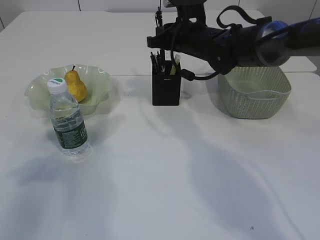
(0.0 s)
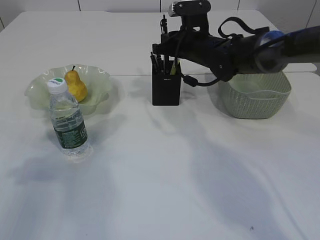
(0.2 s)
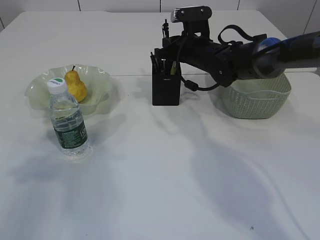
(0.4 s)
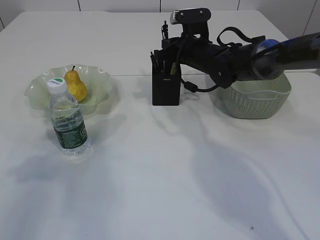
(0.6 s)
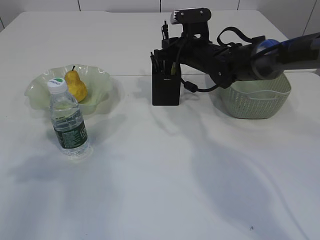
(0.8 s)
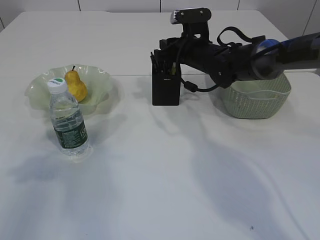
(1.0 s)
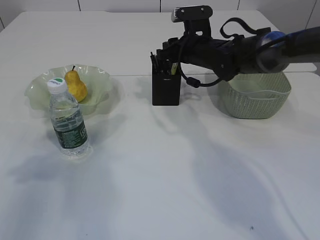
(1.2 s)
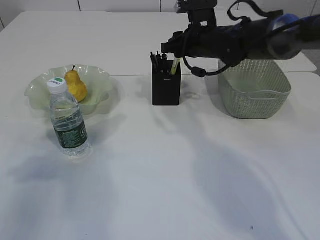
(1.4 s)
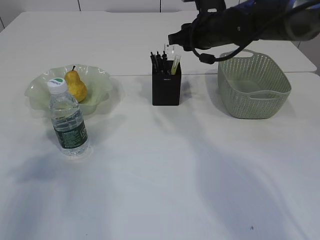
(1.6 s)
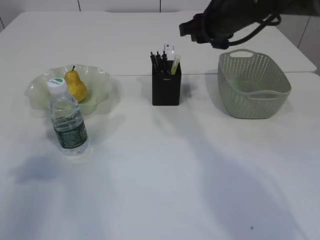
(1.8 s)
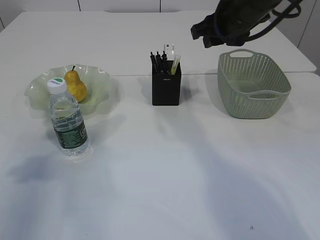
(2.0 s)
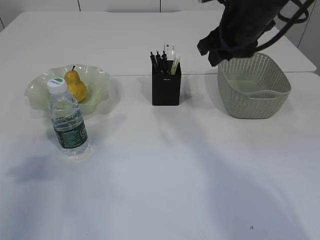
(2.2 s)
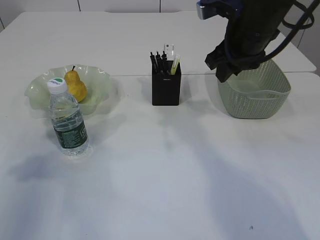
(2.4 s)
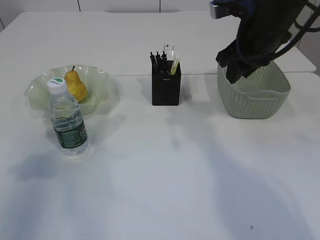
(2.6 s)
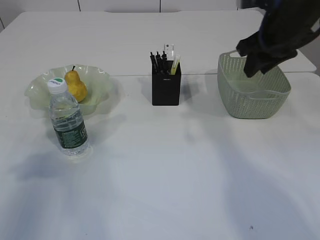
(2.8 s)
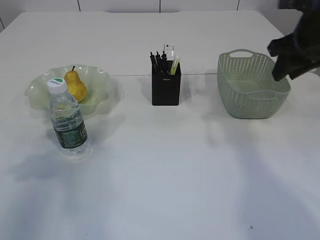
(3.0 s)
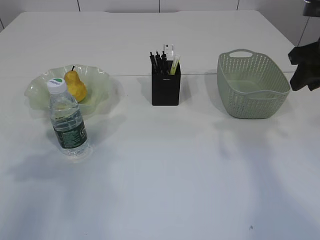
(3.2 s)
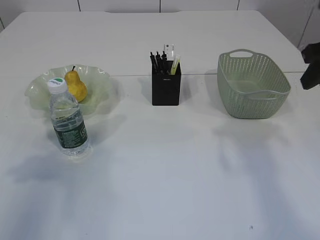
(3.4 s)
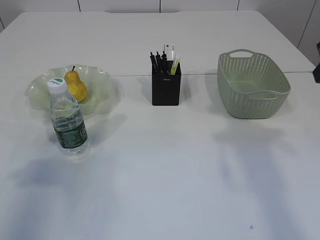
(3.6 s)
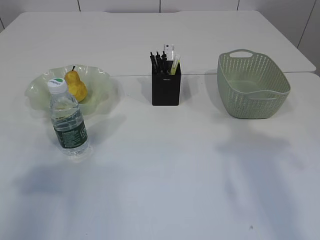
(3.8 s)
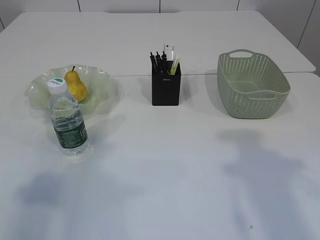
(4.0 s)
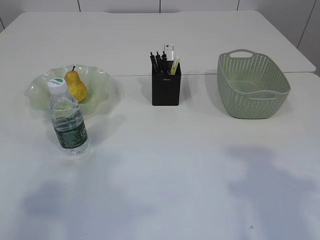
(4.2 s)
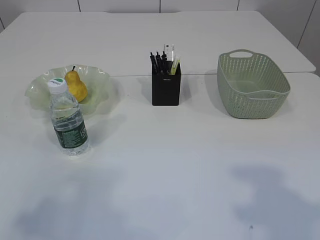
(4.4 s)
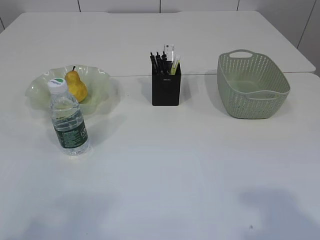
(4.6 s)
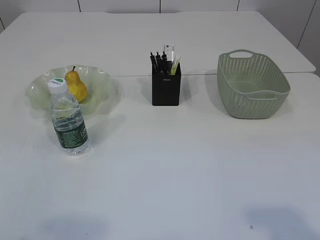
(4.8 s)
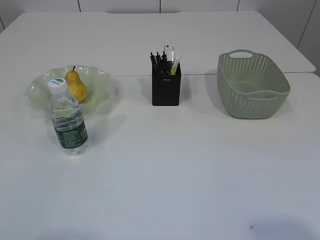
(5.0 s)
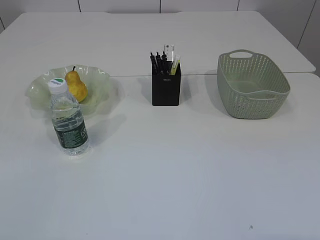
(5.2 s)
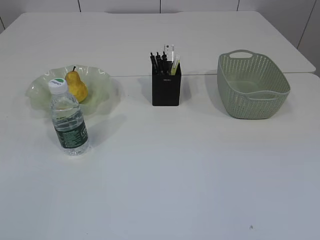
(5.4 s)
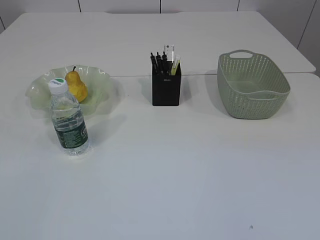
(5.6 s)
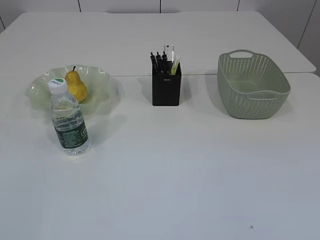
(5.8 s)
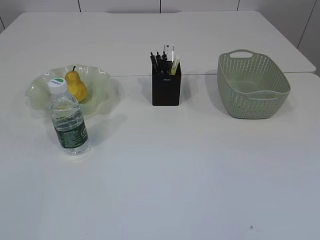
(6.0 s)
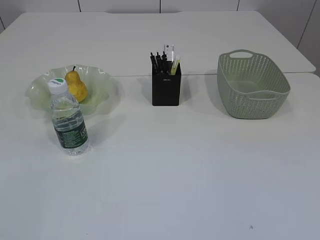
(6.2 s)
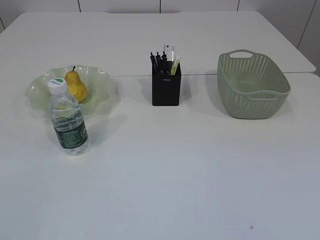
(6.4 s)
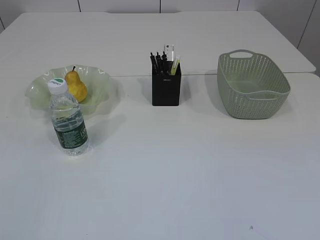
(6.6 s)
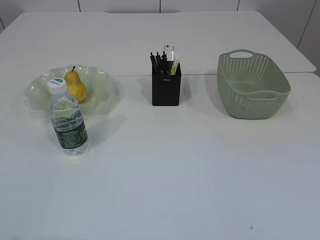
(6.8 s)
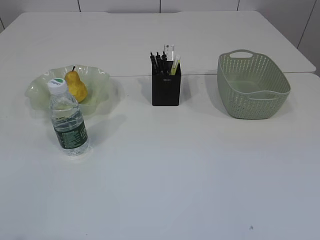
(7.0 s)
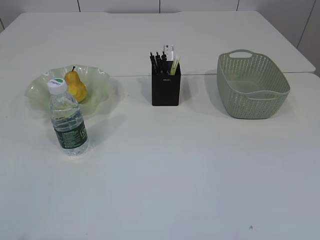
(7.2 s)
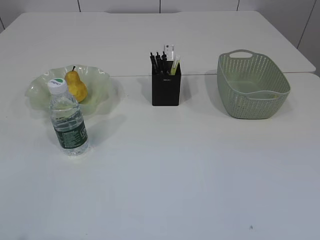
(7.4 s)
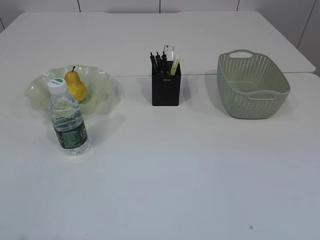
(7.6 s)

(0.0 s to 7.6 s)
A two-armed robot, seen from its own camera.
Step, 0.0 s - 2.4 s: Place the pen into the pen holder.
0.0 s - 1.6 s: The right gripper opens up.
1.6 s - 3.0 s: The right gripper travels to the right, backward and upward by some 15 cm.
3.0 s - 4.6 s: The right gripper goes about 30 cm backward, while the left gripper moves backward, some 15 cm.

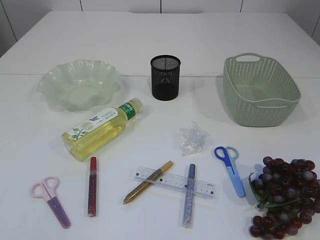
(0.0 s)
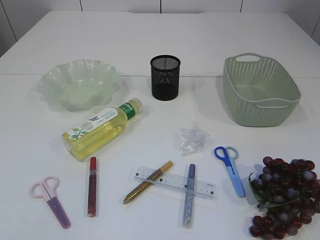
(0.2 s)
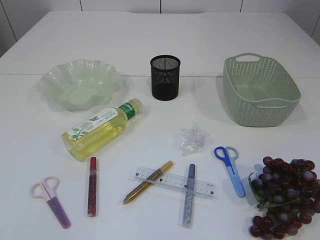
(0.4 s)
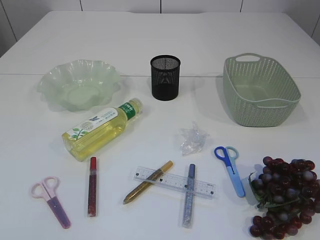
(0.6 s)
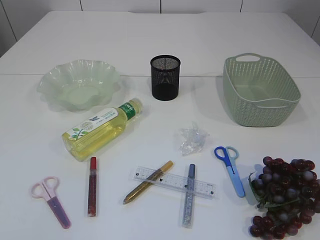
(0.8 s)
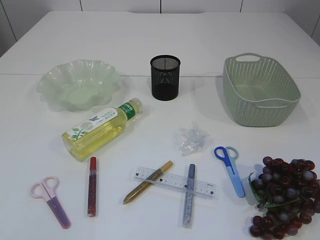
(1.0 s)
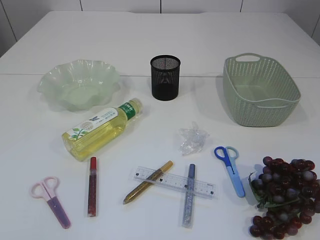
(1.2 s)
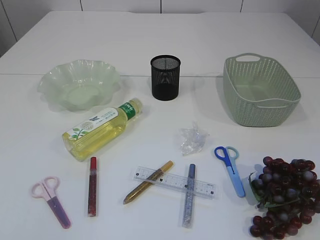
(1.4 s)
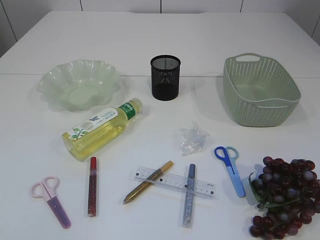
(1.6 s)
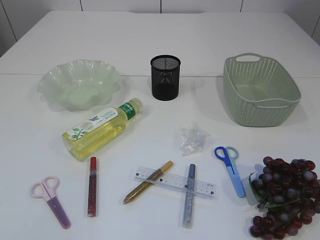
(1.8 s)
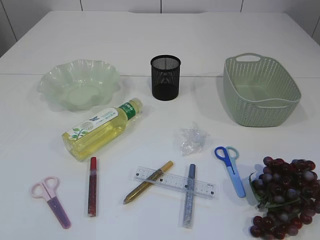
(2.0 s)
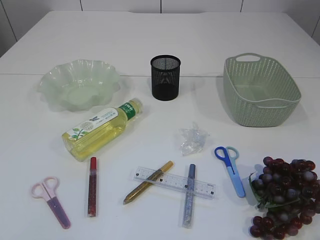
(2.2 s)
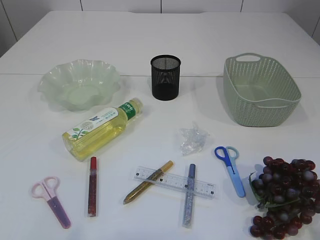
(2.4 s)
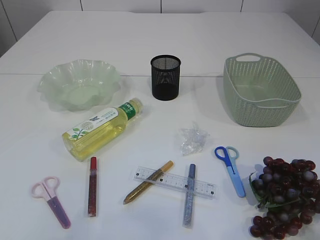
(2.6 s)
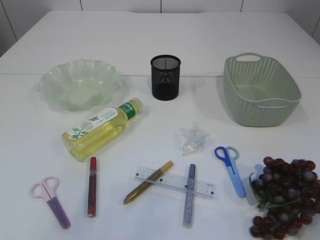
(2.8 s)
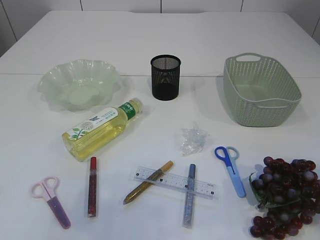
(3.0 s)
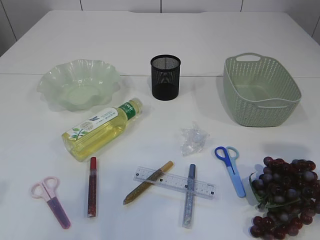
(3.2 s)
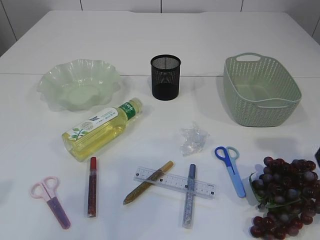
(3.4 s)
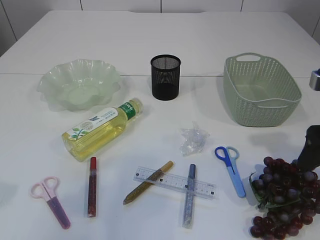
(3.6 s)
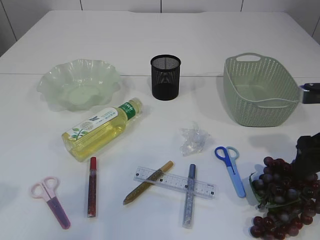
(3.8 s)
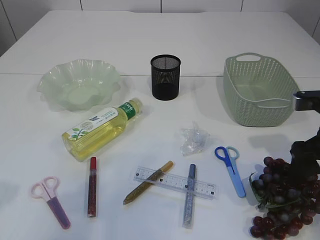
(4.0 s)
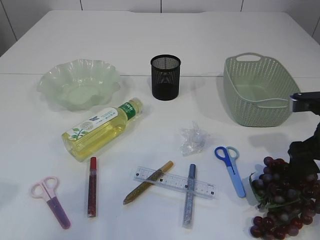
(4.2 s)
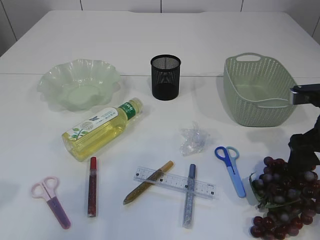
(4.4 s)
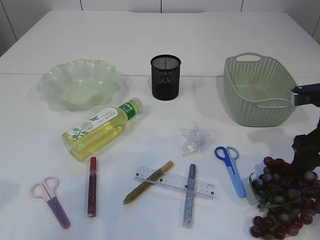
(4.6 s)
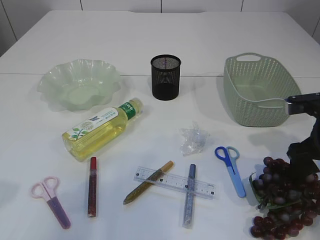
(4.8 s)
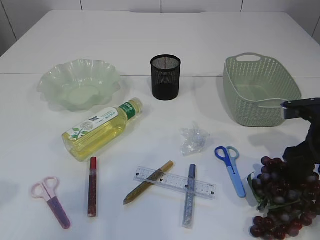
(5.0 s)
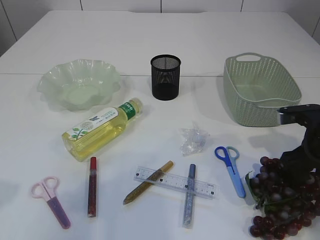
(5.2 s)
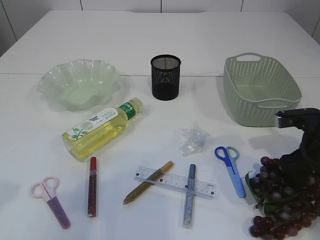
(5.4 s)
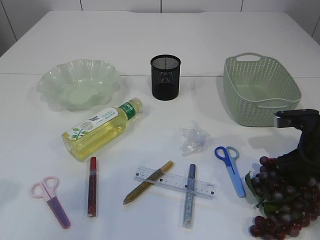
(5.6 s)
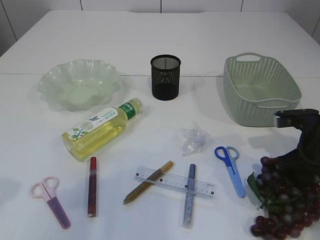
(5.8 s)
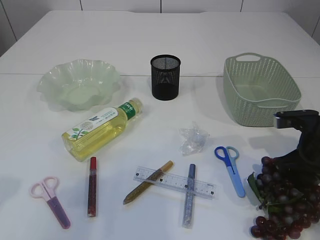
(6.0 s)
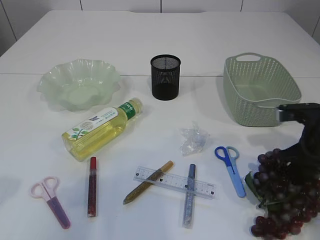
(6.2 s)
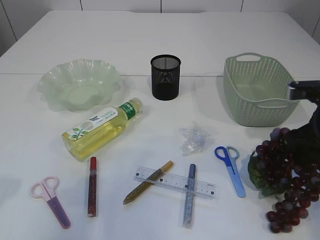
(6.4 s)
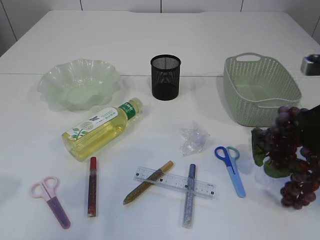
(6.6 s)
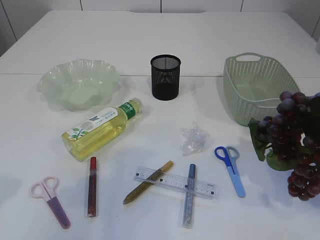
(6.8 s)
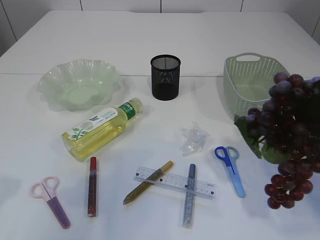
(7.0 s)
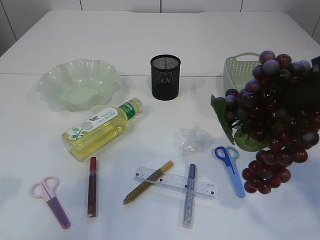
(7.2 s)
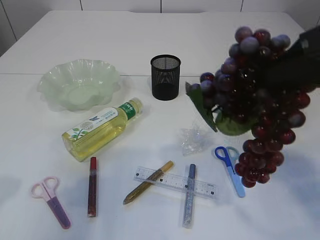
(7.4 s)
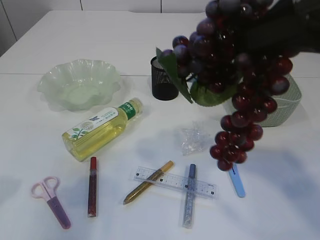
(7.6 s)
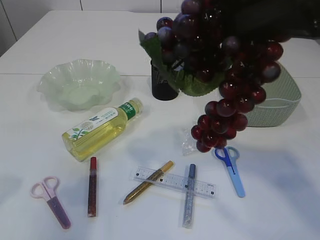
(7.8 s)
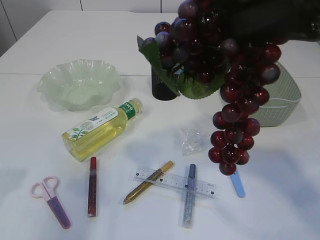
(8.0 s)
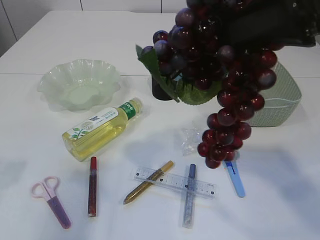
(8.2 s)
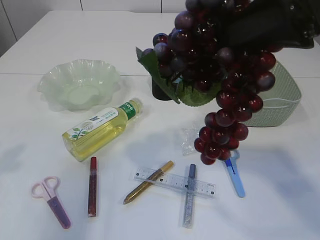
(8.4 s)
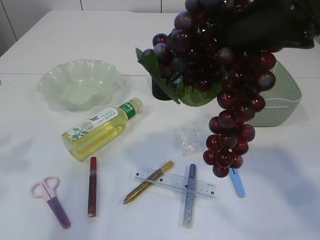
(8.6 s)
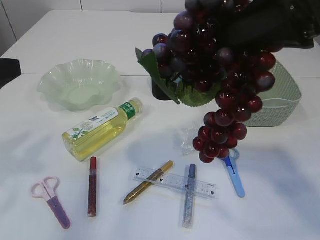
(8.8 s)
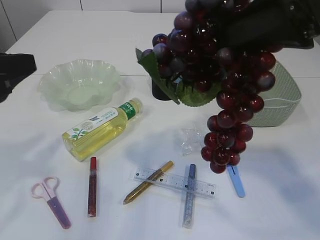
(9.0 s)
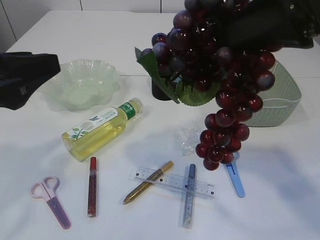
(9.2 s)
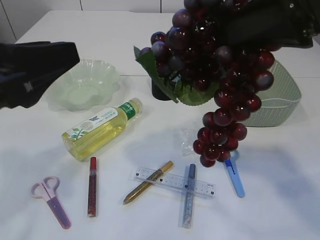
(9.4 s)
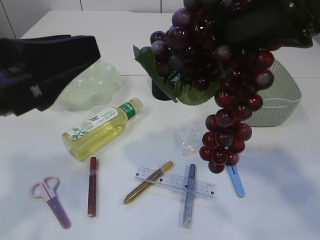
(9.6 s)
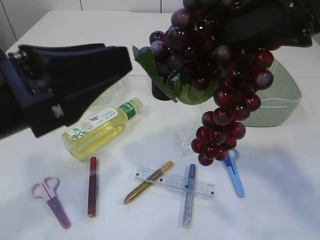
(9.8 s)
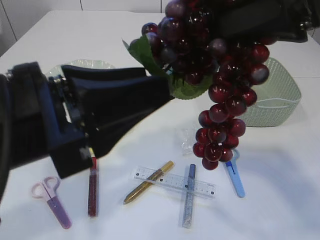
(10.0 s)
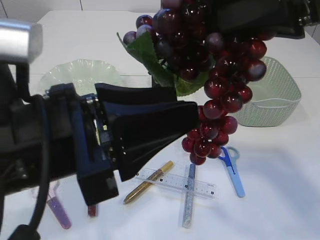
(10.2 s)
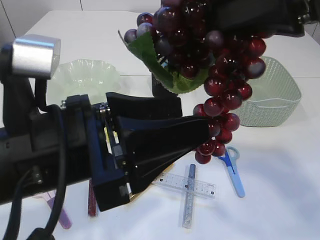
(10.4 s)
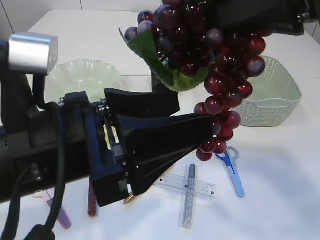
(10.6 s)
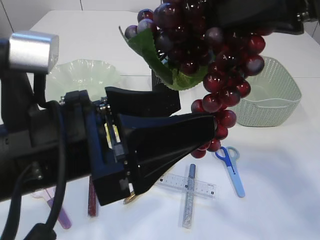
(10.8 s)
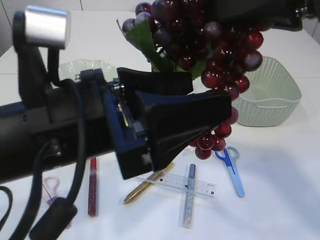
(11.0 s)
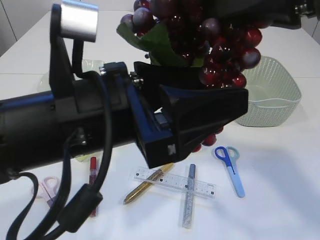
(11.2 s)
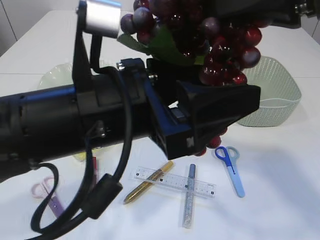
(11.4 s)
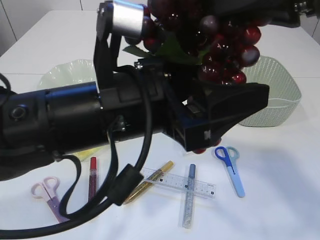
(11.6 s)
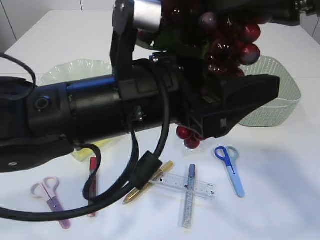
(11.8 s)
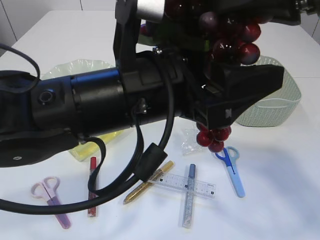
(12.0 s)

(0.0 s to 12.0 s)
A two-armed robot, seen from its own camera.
Step, 0.0 s - 7.2 s: Pick up the grapes.
1.6 s - 3.0 s: The two grippers go about 15 cm forward.
3.0 s - 4.4 s: The right gripper goes about 20 cm forward and downward.
4.4 s - 6.0 s: The right gripper is displaced downward by roughly 5 cm, and closes up.
6.0 s - 7.6 s: The right gripper moves upward, about 25 cm.
7.6 s - 9.0 s: The left gripper is displaced to the right by some 5 cm.
9.0 s - 10.4 s: The left gripper moves to the right, about 15 cm.
10.4 s - 12.0 s: The left gripper moves to the right and forward, approximately 10 cm.

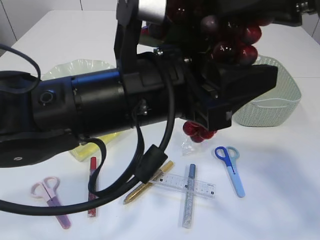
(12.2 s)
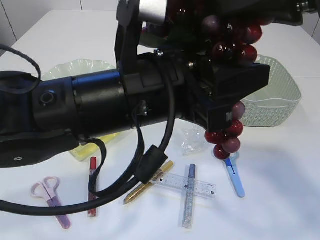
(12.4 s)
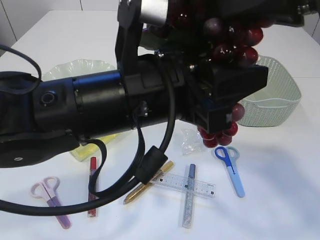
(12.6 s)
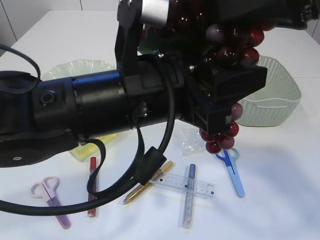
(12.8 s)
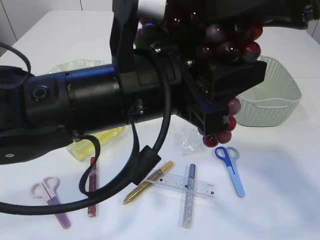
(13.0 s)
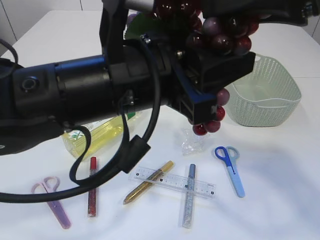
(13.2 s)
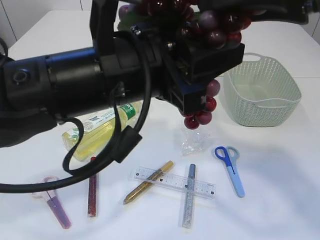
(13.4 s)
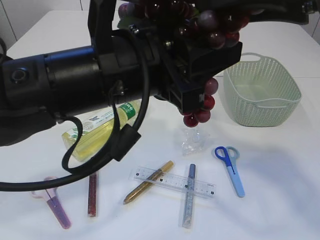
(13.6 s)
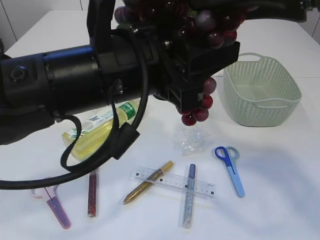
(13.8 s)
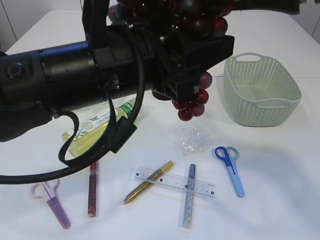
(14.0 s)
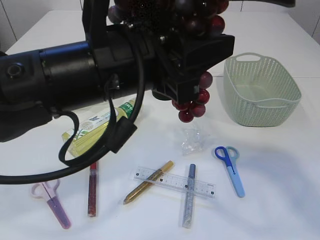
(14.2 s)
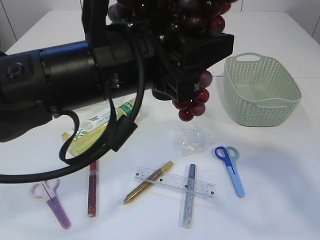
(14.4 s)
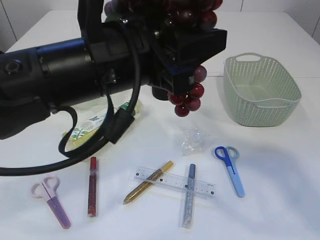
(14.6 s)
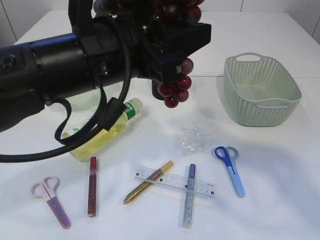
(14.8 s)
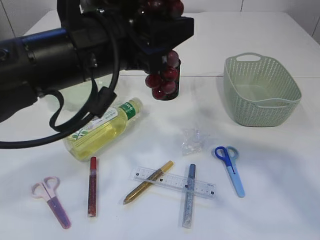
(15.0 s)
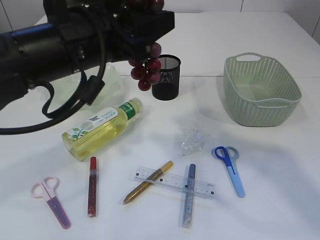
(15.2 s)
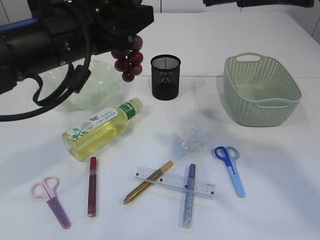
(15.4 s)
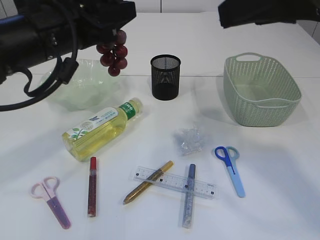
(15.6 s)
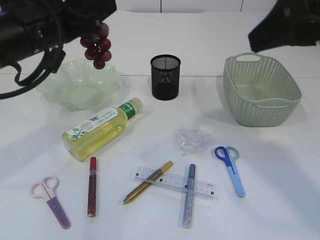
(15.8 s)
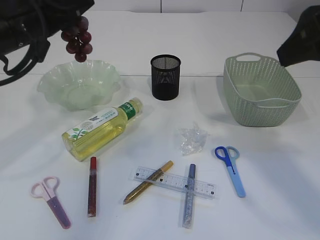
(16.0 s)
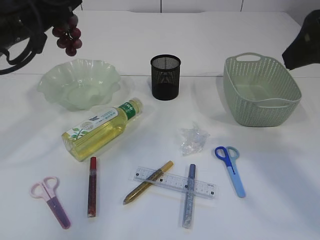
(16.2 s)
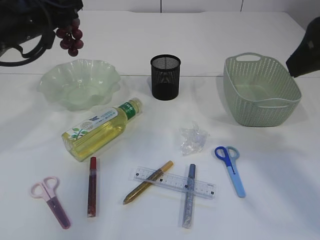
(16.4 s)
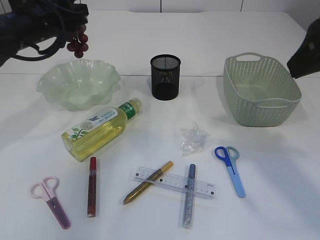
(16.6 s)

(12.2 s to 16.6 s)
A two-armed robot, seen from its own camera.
Step, 12.2 s - 15.6 s: Hand over the grapes.
12.2 s - 13.6 s: The right gripper opens; the left gripper closes its fingers.
13.6 s - 15.2 s: The left gripper heads to the left, covering roughly 5 cm.
15.2 s - 16.6 s: The left gripper shifts about 20 cm forward and to the left, while the right gripper is displaced to the right by roughly 5 cm.
